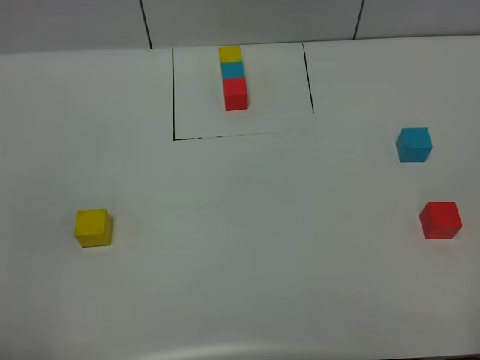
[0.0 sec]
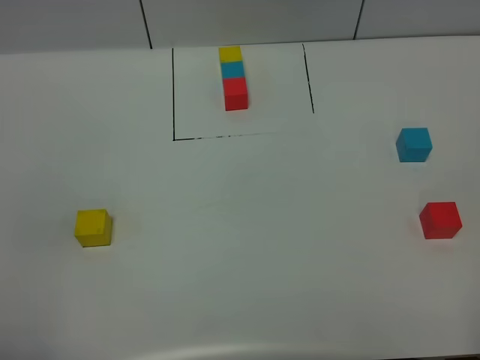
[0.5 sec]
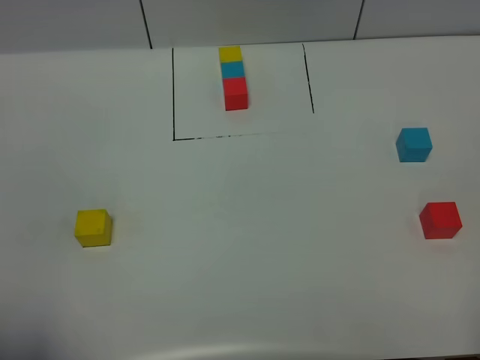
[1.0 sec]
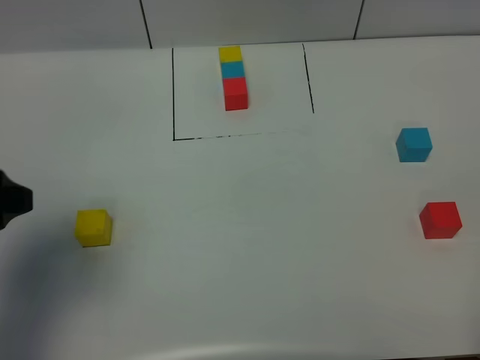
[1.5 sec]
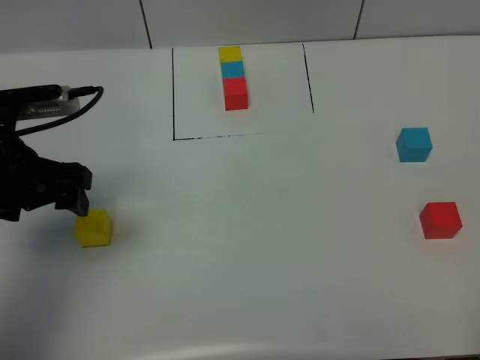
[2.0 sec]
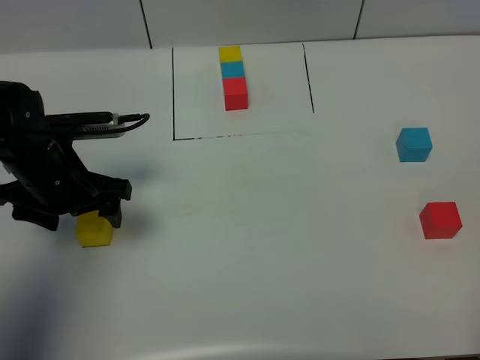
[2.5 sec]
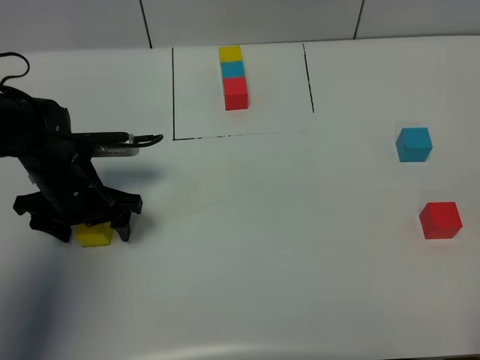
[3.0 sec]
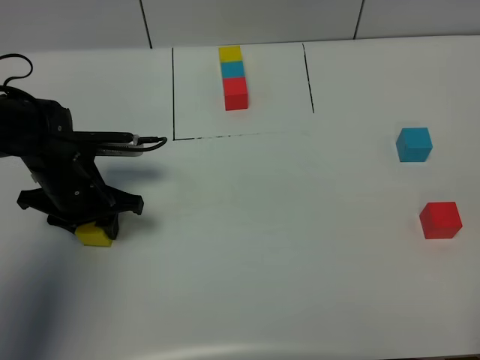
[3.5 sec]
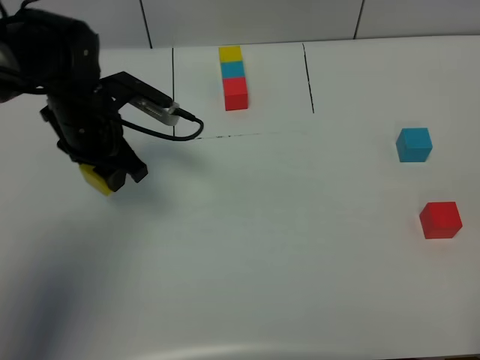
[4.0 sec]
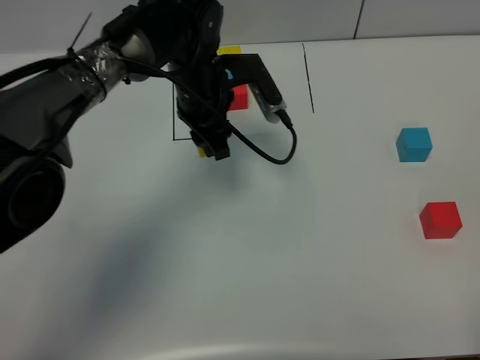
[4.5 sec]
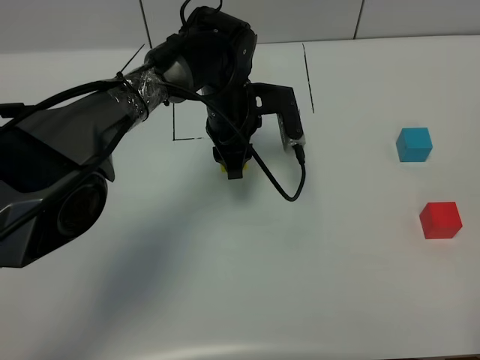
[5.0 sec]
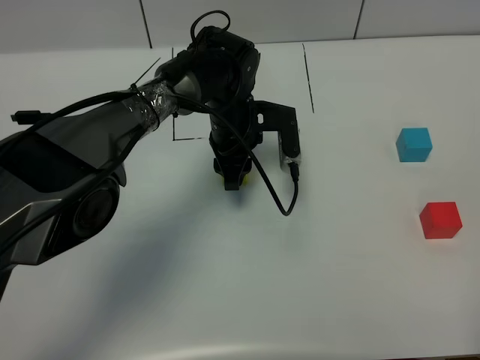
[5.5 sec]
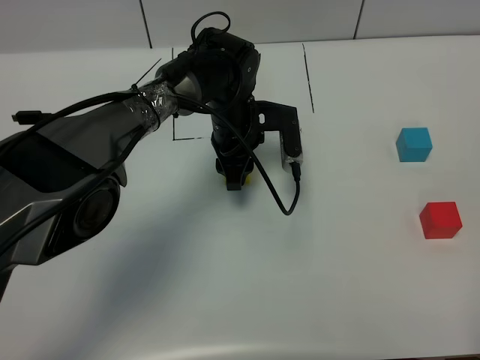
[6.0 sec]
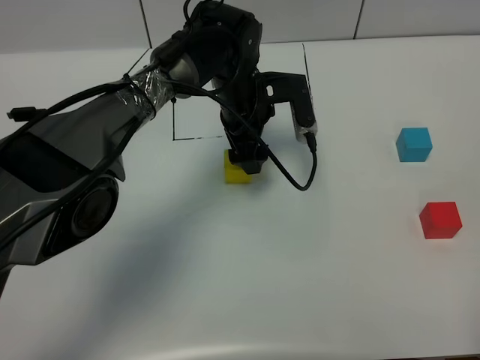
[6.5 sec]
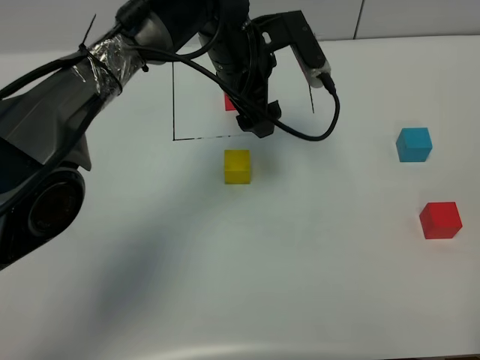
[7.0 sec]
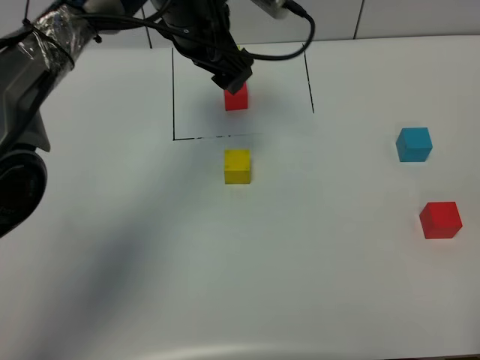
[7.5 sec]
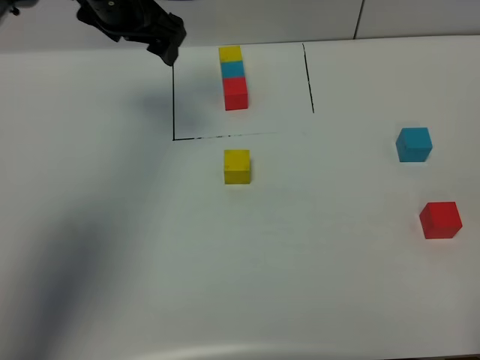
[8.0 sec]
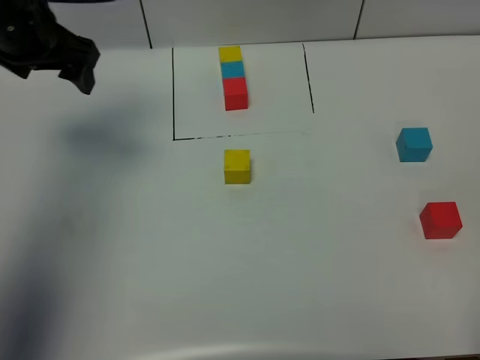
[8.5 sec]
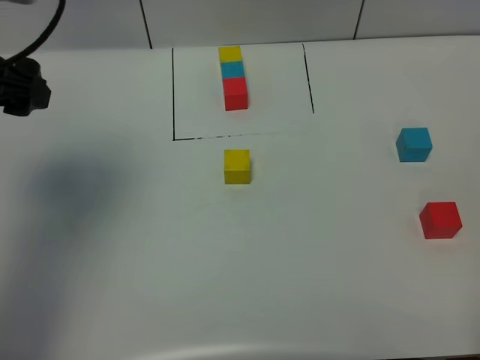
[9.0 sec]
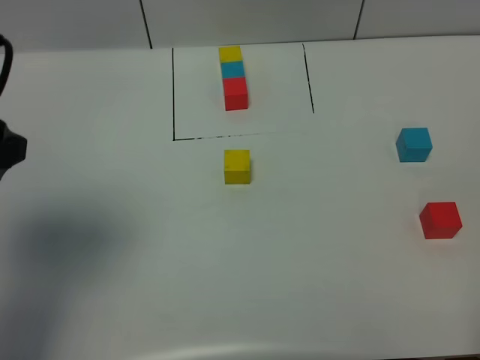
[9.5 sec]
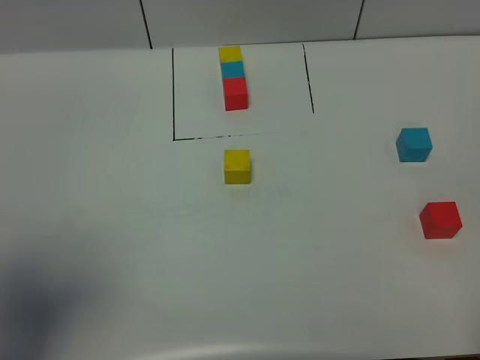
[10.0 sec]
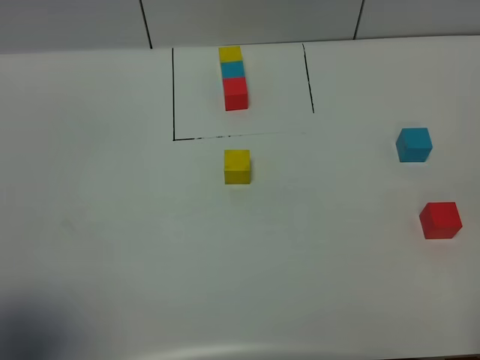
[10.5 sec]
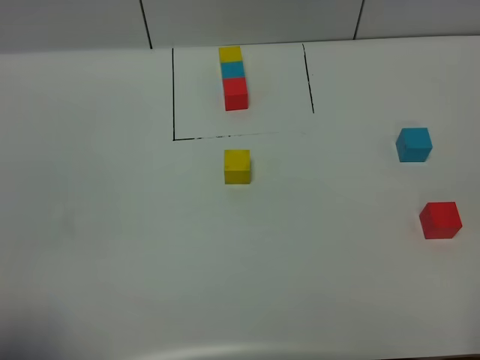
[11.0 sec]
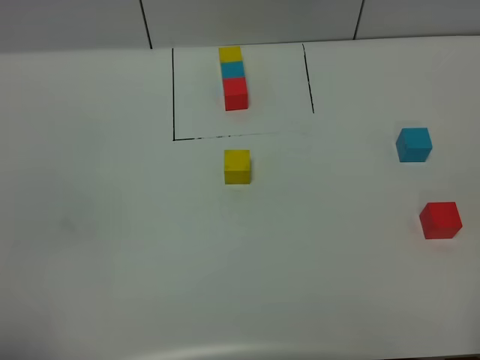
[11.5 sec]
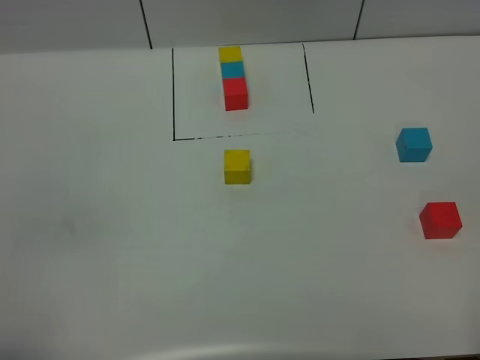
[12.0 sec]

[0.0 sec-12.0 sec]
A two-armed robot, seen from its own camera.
Task of the whole recording: According to the building block template in front, assemble the scattered blocks together.
Step, 1.5 sec to 7.5 sec: Put the yellow cube in the center of the table.
0.0 sec to 2.0 sec: The left gripper is displaced forward by roughly 30 cm.
2.0 sec to 4.0 sec: The left gripper travels forward and to the right by some 15 cm, reaches some 10 cm downward, then returns, and closes its fingers.
4.0 sec to 6.0 sec: The left gripper travels to the right and downward by approximately 15 cm.
6.0 sec to 8.0 sec: The left gripper shifts about 25 cm upward and to the left, and opens.
8.0 sec to 10.0 sec: The left gripper goes some 35 cm backward.
10.0 sec to 12.0 sec: The left gripper is displaced backward and downward by about 15 cm.

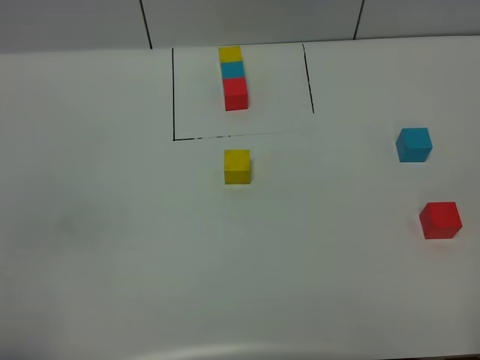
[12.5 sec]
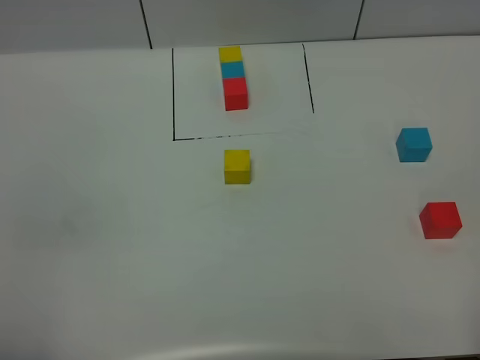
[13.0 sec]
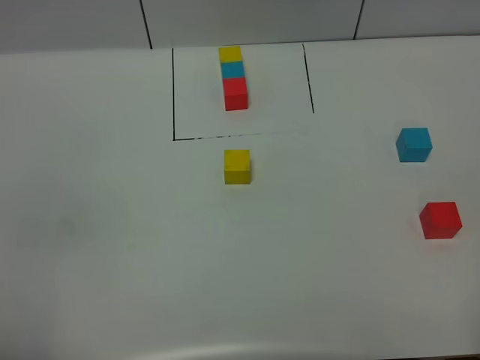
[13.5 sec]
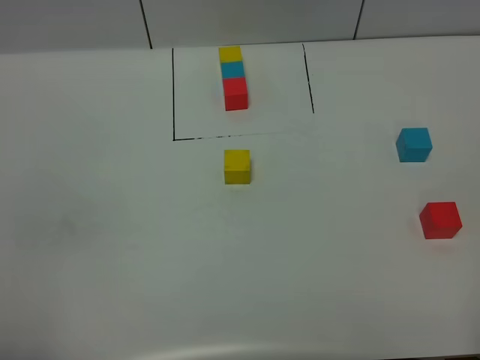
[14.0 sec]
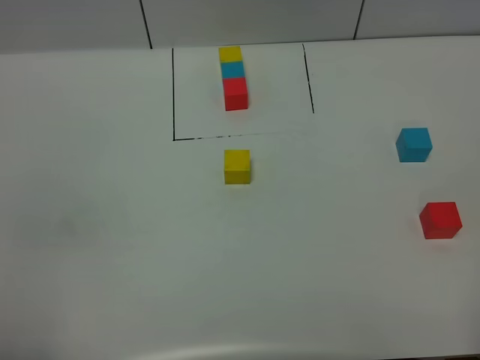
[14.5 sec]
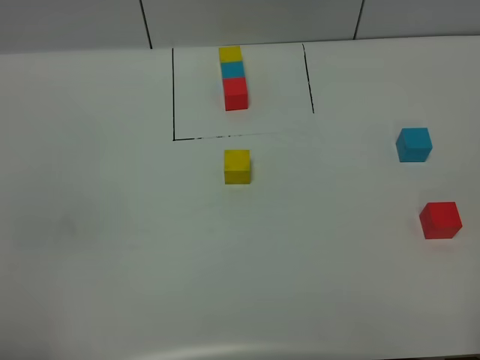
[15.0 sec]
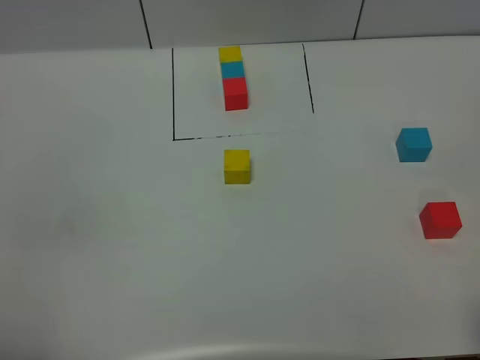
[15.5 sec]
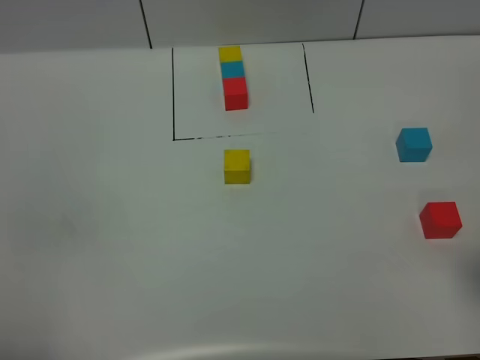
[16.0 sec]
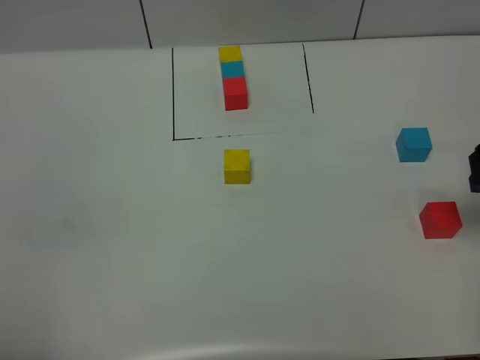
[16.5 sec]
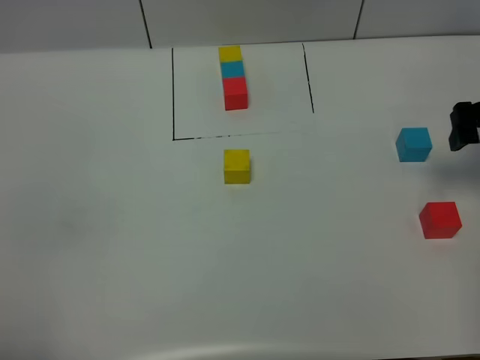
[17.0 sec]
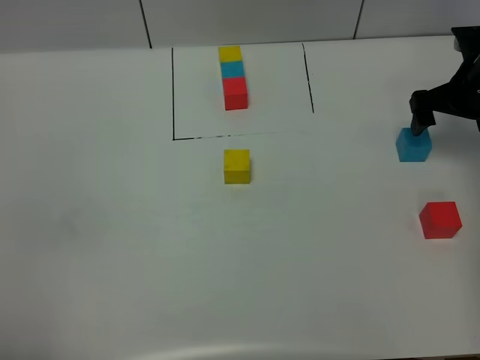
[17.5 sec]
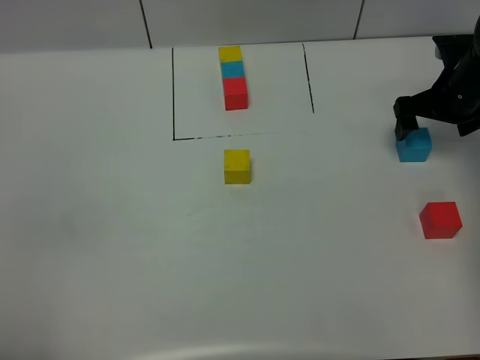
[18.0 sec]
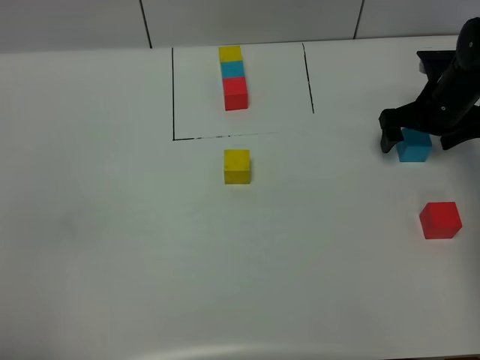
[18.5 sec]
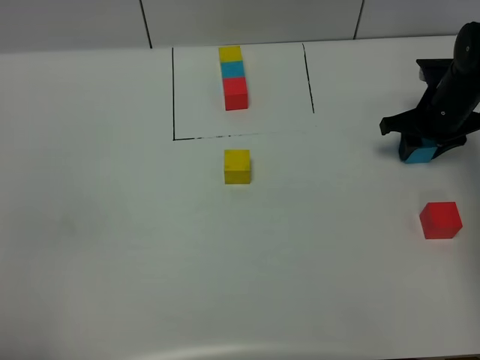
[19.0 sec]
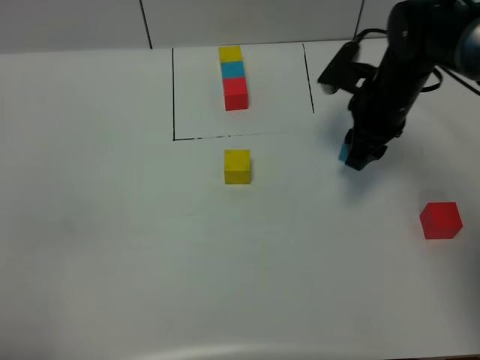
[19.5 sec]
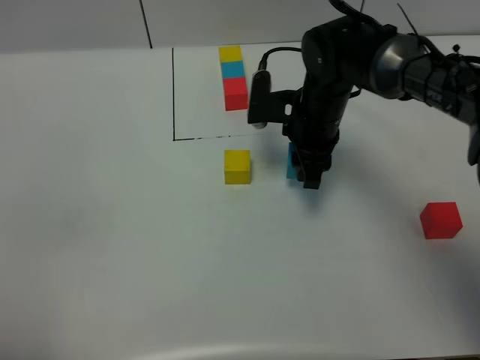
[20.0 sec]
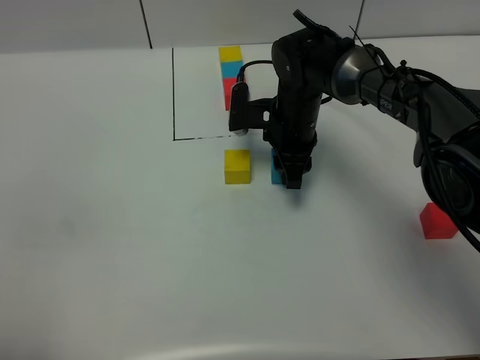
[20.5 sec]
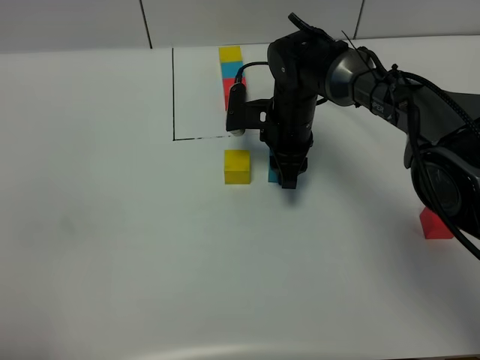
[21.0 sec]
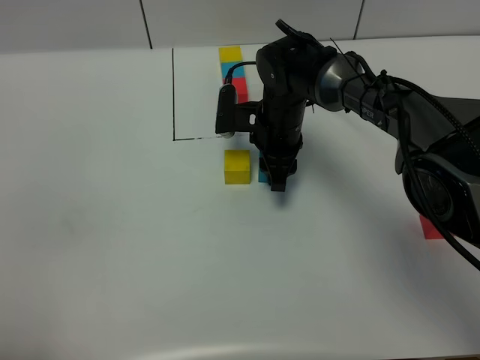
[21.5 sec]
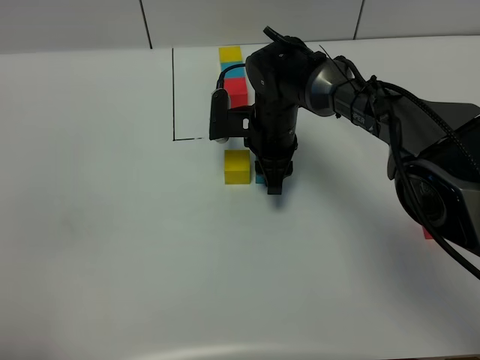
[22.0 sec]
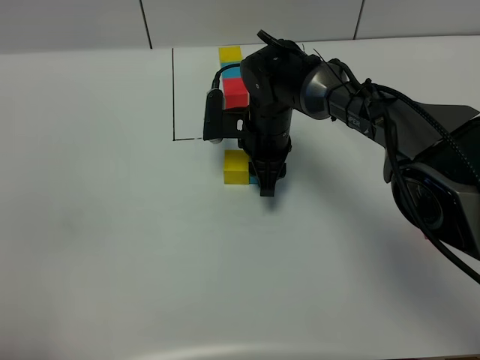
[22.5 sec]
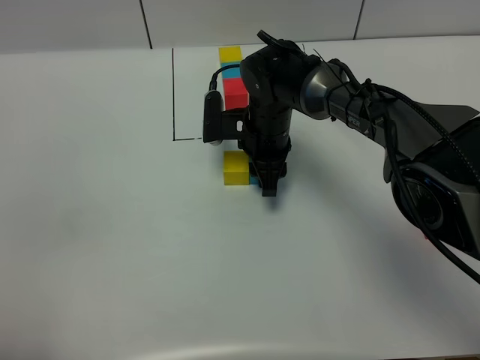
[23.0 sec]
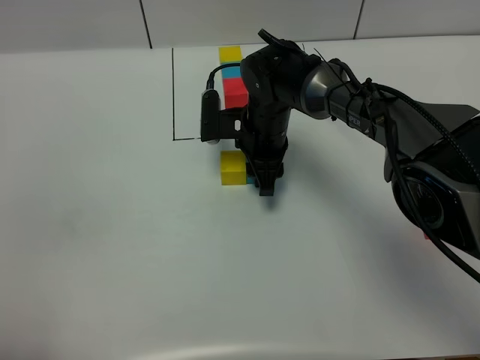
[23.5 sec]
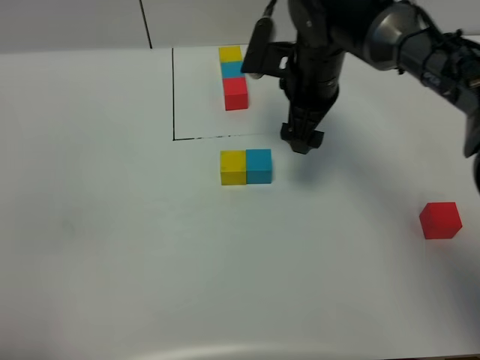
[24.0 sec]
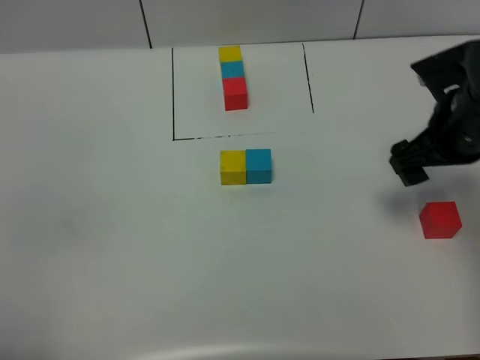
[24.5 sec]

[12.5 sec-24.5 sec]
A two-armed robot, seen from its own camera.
Task of the whole recording: According to the building block template in front, assemble the scattered blocks together.
Step, 12.5 sec to 24.0 sec: Put the blue cube on the right of the yellow cube.
14.5 sec to 16.5 sec: The right gripper goes roughly 30 cm forward.
16.5 sec to 18.5 sec: The right gripper moves forward and downward, about 20 cm.
18.5 sec to 20.5 sec: The right gripper shifts roughly 20 cm to the left, and closes its fingers.
20.5 sec to 22.5 sec: The grippers make only small movements.
22.5 sec to 24.5 sec: The right gripper goes about 25 cm to the right and upward, and opens.

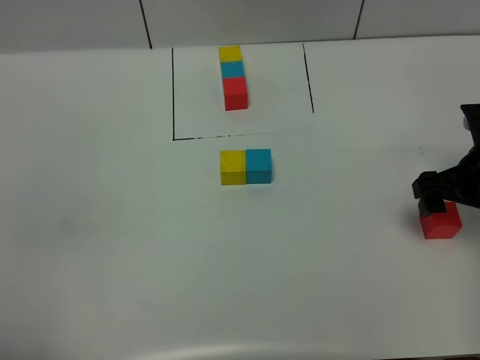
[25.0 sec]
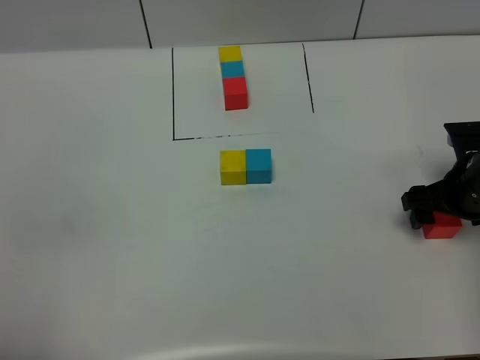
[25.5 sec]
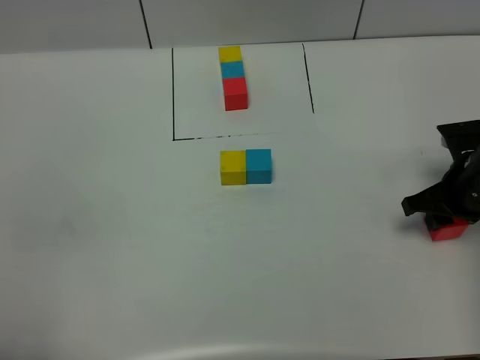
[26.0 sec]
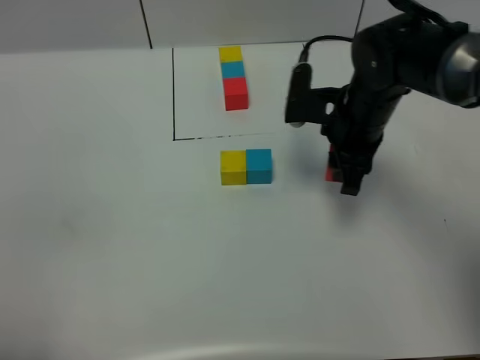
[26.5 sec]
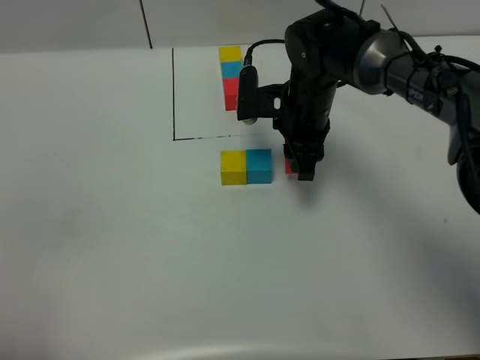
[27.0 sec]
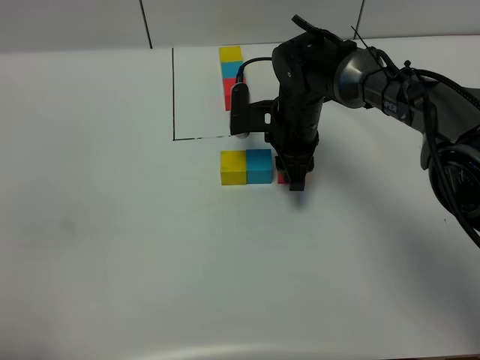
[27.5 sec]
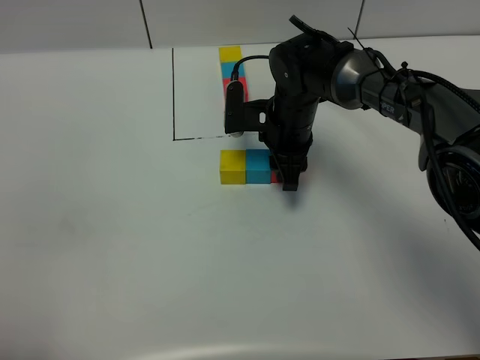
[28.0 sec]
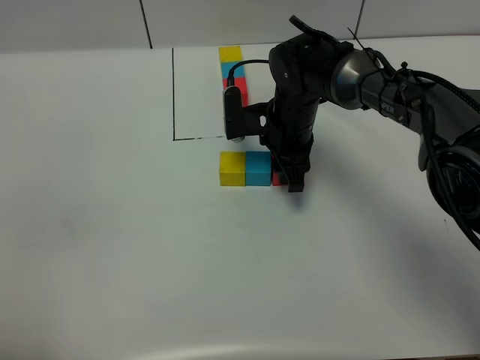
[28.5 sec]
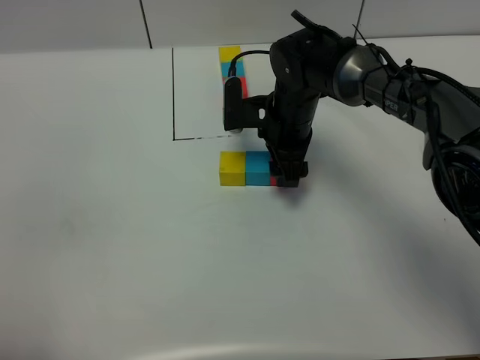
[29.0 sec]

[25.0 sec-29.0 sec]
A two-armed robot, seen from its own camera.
Task of the whole recording: According to the building block template in front, assemble the scattered blocks together.
25.0 sec to 27.0 sec: The right gripper shifts about 25 cm to the left and forward, and closes.
27.0 sec to 29.0 sec: The right gripper opens.
